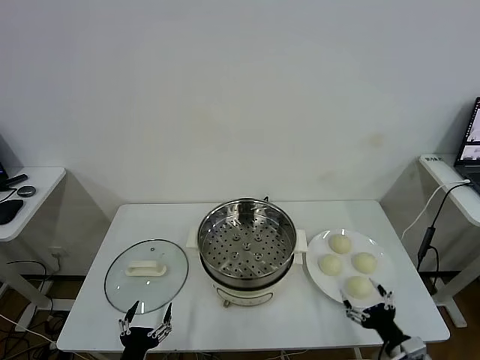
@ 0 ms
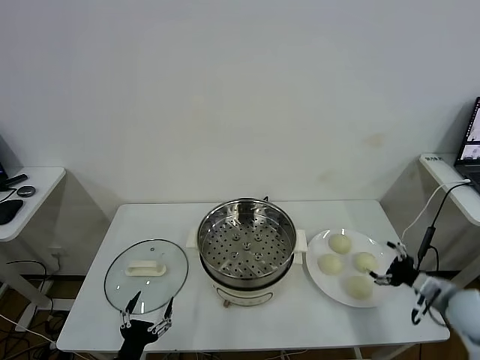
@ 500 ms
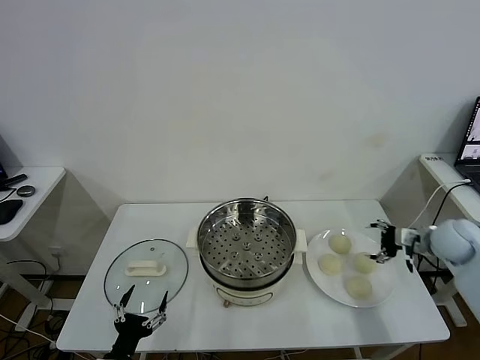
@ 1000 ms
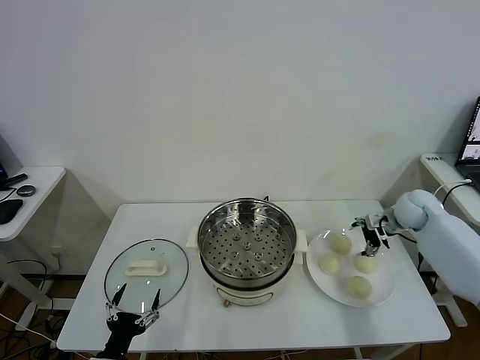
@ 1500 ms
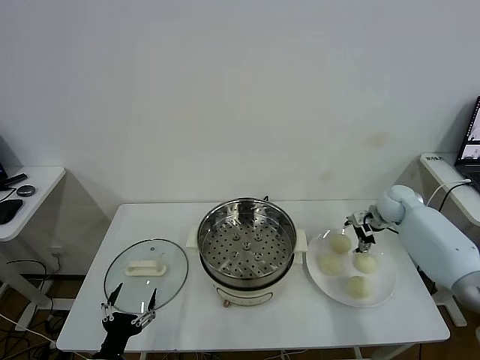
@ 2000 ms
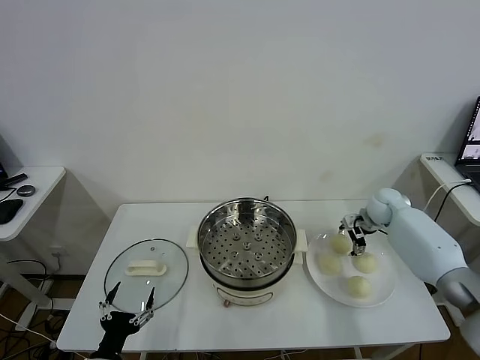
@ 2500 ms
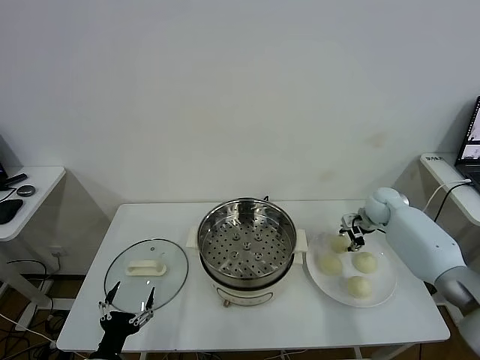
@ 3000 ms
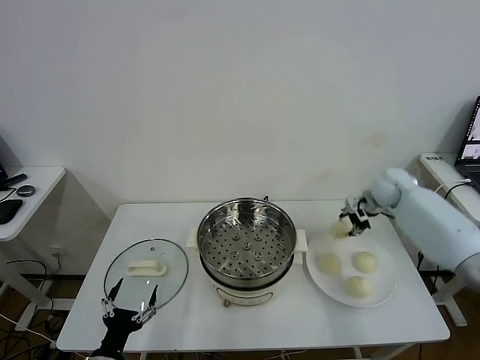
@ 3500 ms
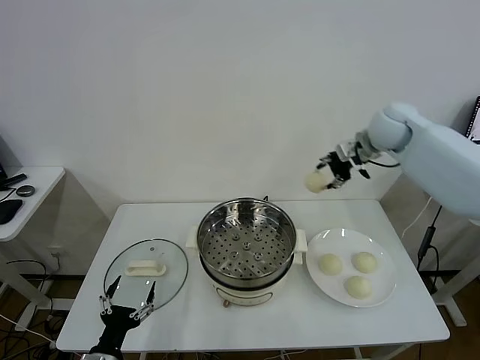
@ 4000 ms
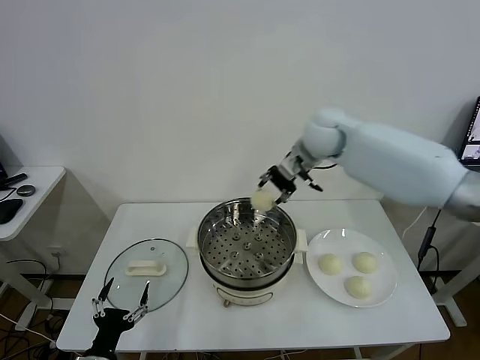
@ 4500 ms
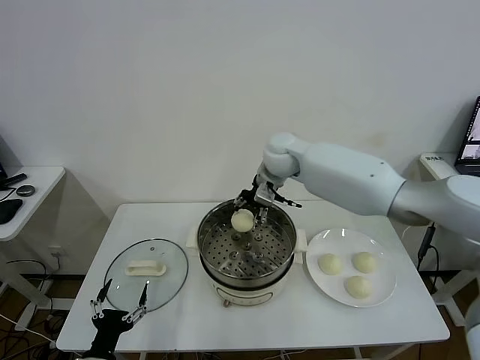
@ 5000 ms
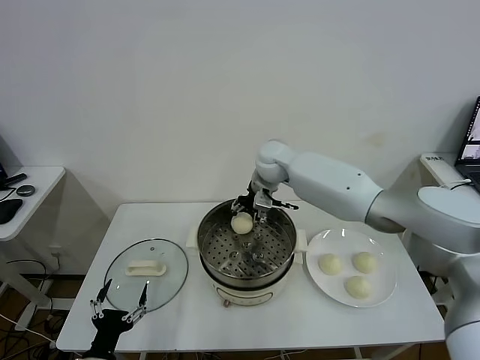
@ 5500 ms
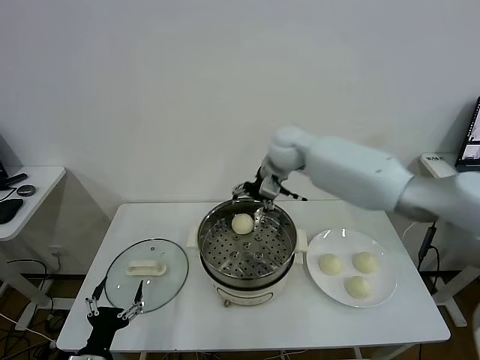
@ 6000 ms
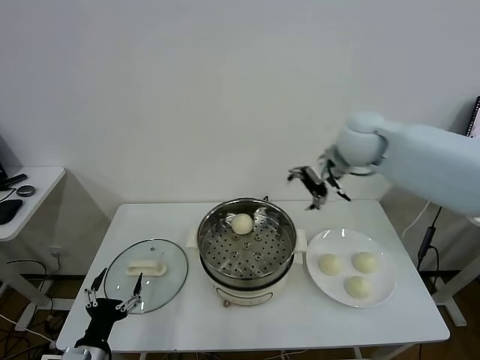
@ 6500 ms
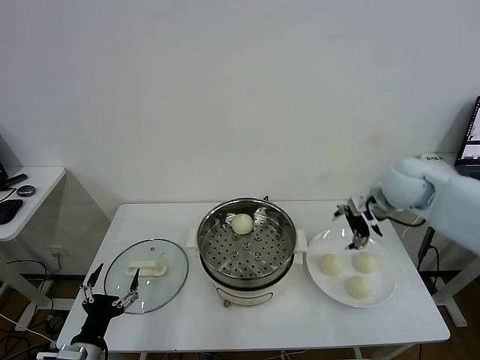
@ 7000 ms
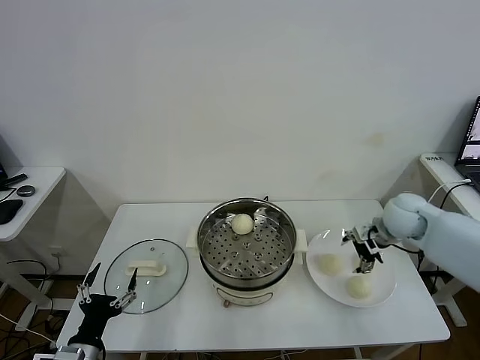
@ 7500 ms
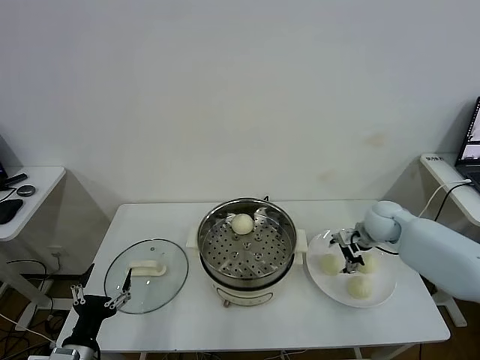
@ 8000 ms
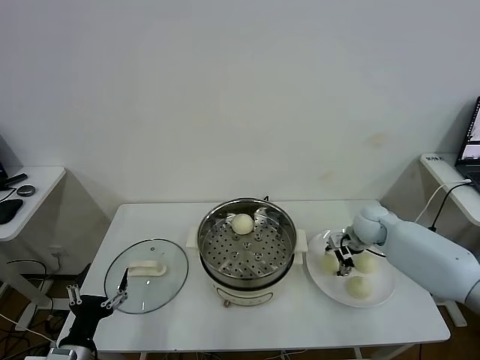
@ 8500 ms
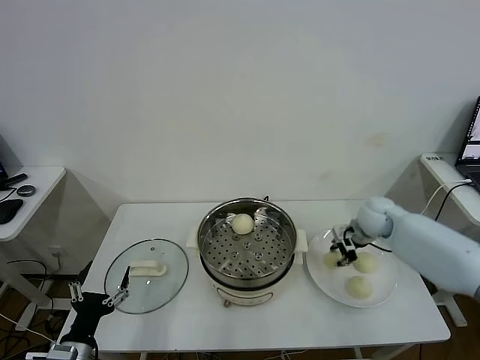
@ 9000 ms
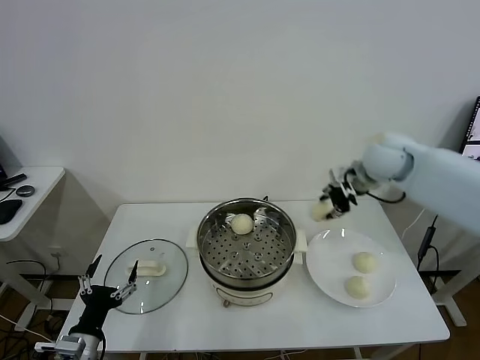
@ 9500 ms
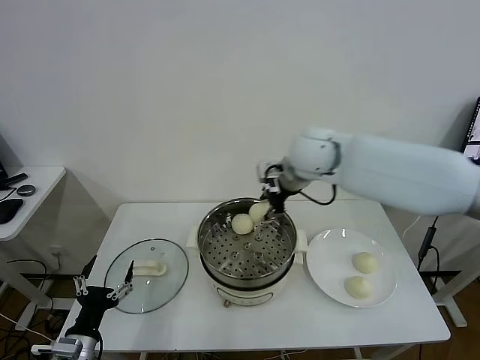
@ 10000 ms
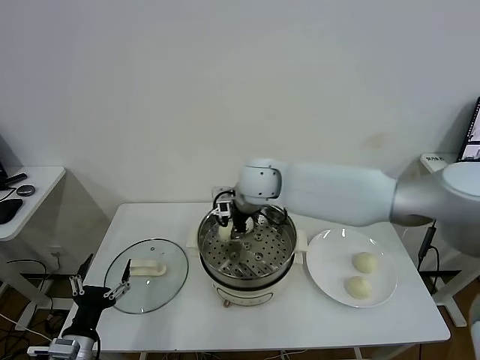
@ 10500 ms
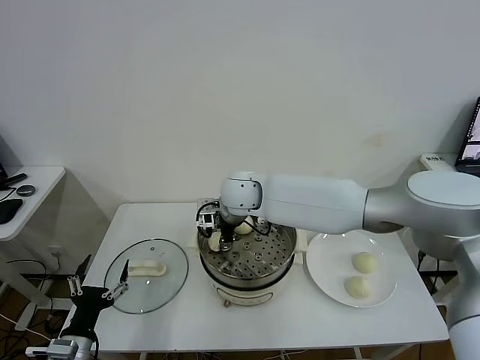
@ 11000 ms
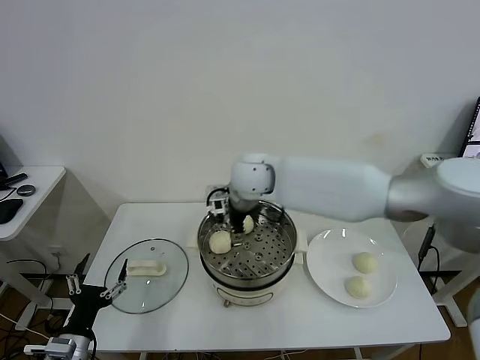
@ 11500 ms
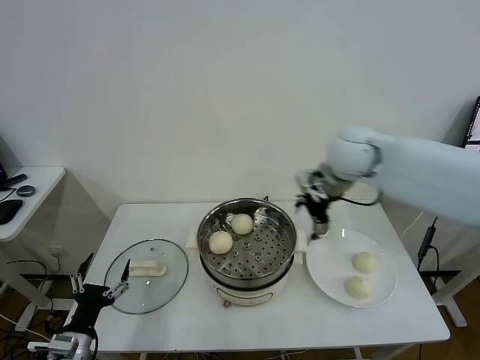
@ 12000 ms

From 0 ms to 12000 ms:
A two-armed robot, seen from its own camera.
Task of the whole recording: take steamed baozi put them in steamer.
Step, from 0 ms to 3000 ms: Grasp the baozi in the plate with right gripper.
Step, from 3500 ms to 5500 ms: Place the baozi on the steamer with right gripper.
Step, from 6000 ms to 8500 ms: Grasp the baozi in the plate with right gripper.
Step, from 9000 ms to 11000 ms: Place the baozi on the steamer with right gripper.
From 2000 ms to 4000 ms: The right gripper heads upward and to the left, covering approximately 25 cm, and closes.
From 4000 ms to 6000 ms: The right gripper moves to the left, roughly 15 cm, and opens its fingers.
From 6000 ms to 8000 ms: The right gripper shifts roughly 30 cm to the right and downward.
From 8000 ms to 10000 ms: The right gripper goes approximately 30 cm to the left and upward, and closes.
From 10000 ms to 12000 ms: The right gripper moves to the right, some 15 cm, and opens up.

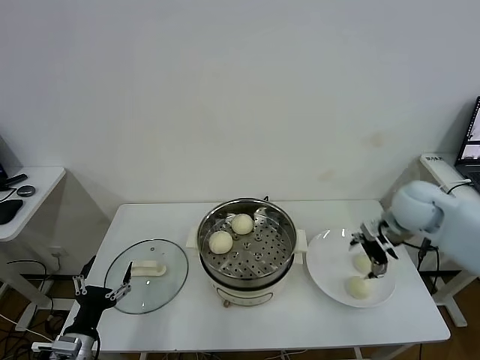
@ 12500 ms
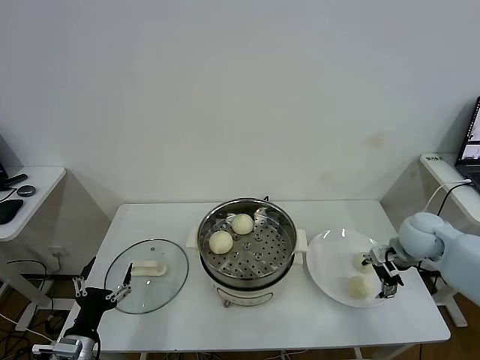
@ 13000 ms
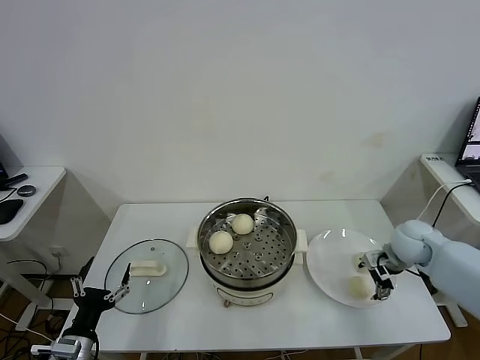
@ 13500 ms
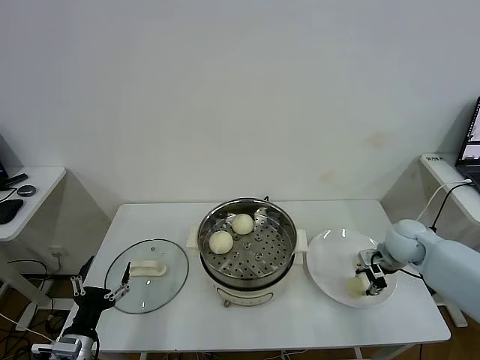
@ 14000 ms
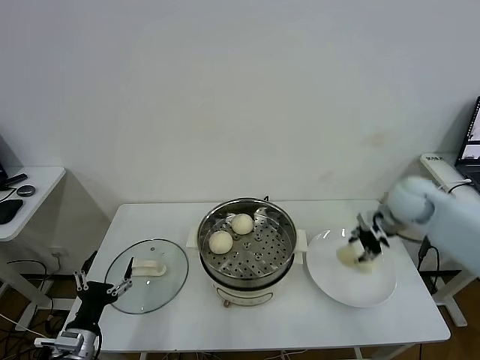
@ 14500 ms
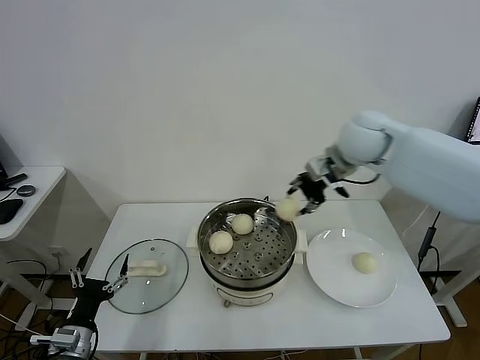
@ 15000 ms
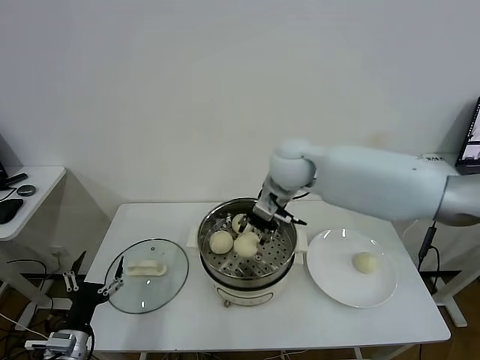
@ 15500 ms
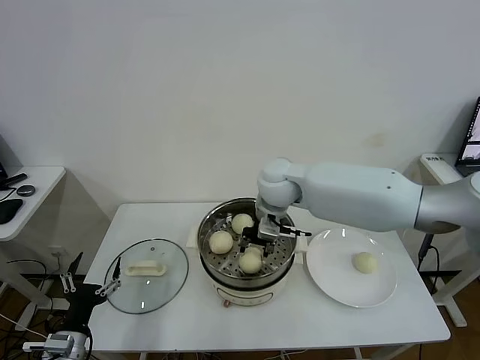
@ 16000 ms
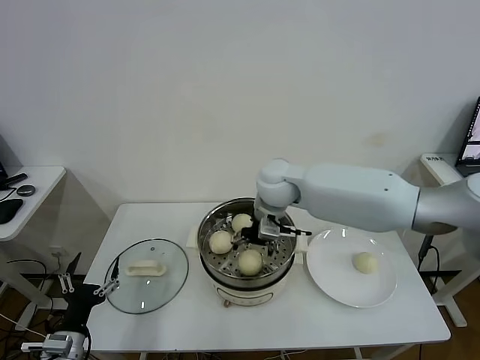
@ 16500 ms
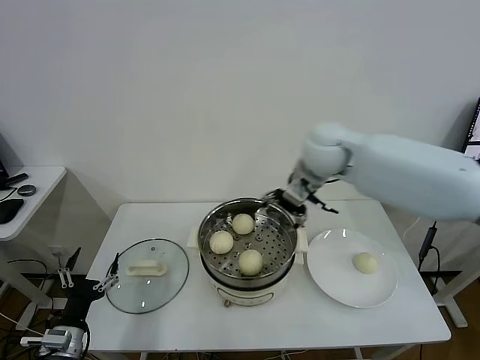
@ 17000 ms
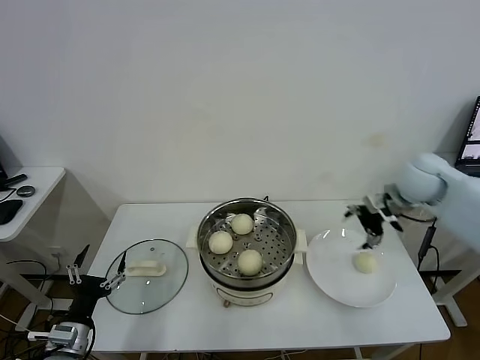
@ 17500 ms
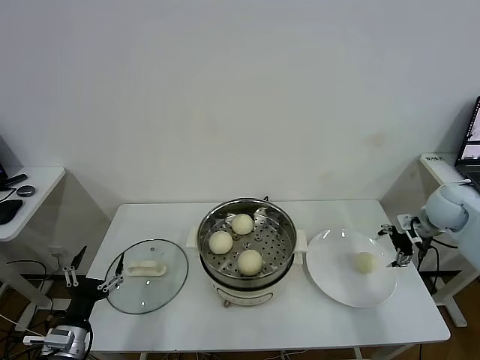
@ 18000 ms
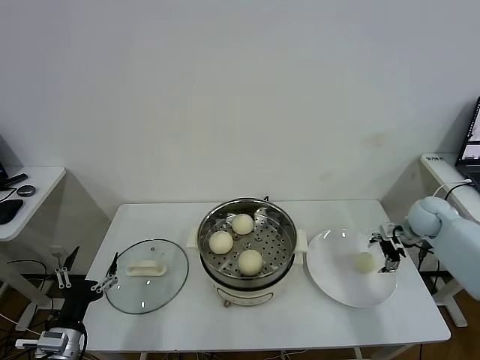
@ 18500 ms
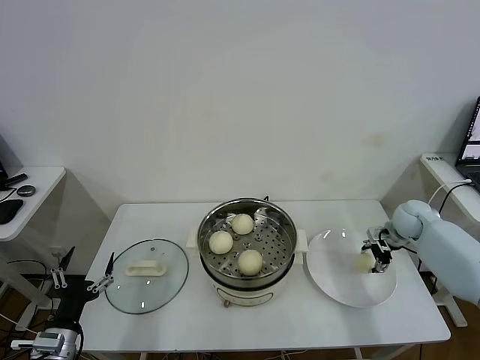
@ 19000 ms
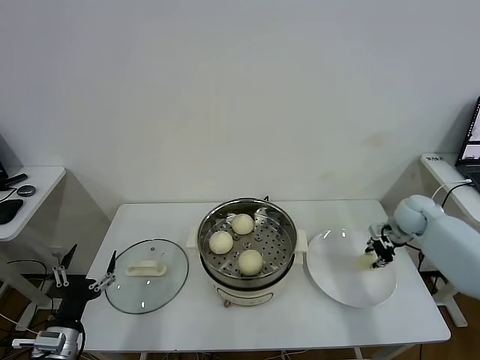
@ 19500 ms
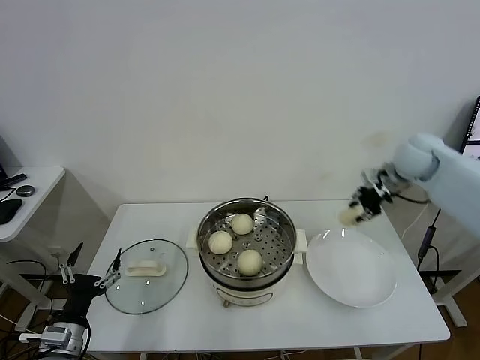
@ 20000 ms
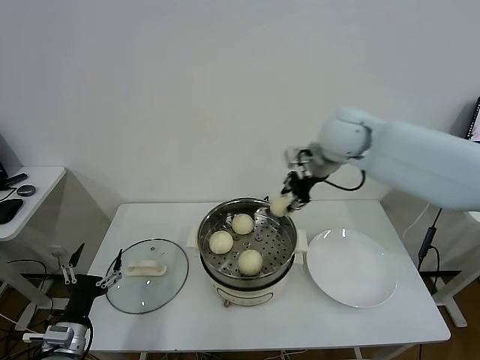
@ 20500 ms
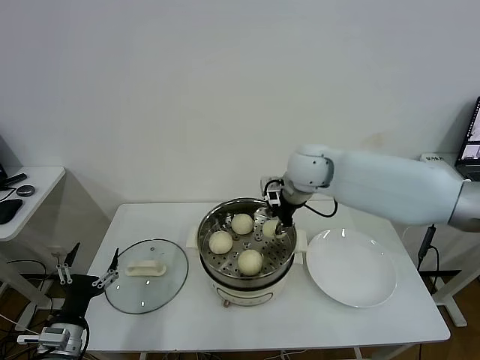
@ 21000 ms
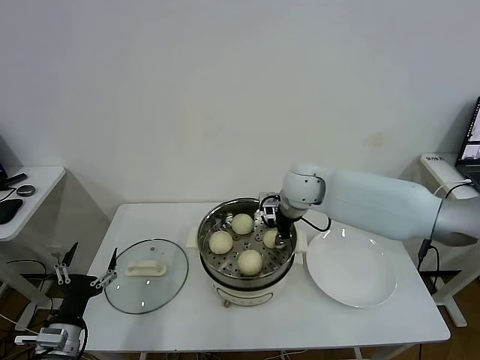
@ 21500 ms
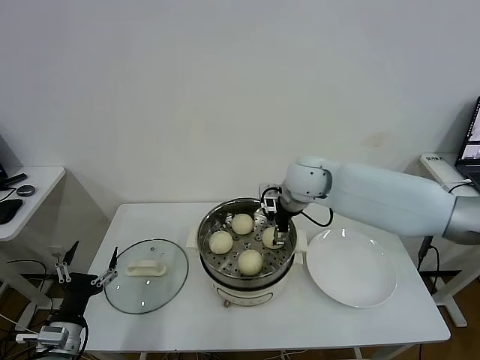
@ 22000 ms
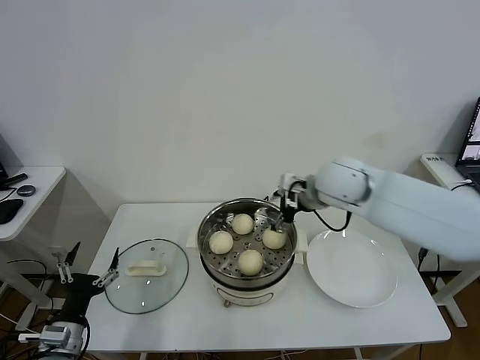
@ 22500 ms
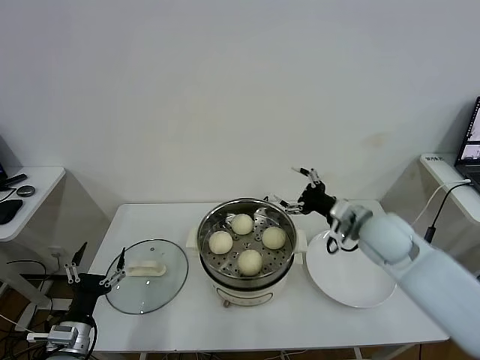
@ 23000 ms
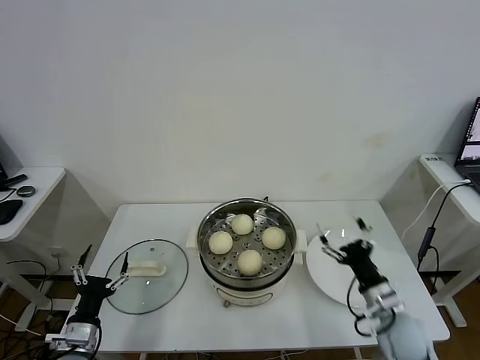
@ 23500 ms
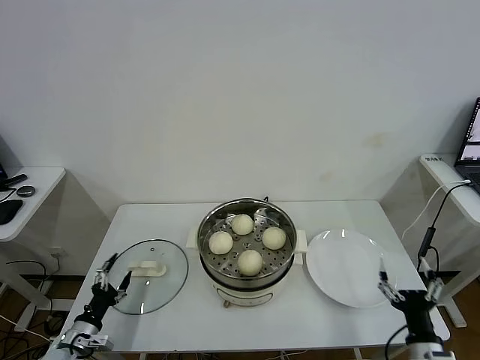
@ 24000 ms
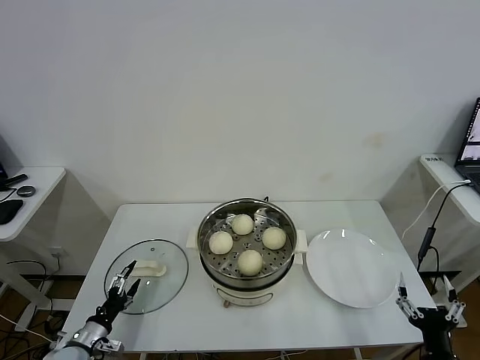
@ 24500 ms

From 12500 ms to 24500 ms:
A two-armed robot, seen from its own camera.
Task of the whole recording: take steamed baozi put them in steamer.
Step, from 12500 ms to 14000 ms: Grasp the baozi in the plate with right gripper.
Step, from 14500 ms to 16500 ms: Place the baozi on the steamer with right gripper.
Step, from 17000 ms to 19000 ms: Grasp the baozi in the plate with right gripper.
Step, from 19500 ms to 22000 ms: Place the baozi on the steamer with right gripper.
From 12500 ms to 14500 ms: The right gripper travels downward and back again, some 10 cm each way, and closes its fingers.
From 14500 ms to 16500 ms: The right gripper heads to the left, covering about 30 cm, and opens.
From 16500 ms to 18500 ms: The right gripper travels to the right by approximately 40 cm.
From 18500 ms to 20500 ms: The right gripper heads to the left and upward, covering some 35 cm, and closes.
From 20500 ms to 22500 ms: The right gripper shifts approximately 10 cm downward and backward, and opens up.
From 22500 ms to 24500 ms: The left gripper heads downward, covering some 10 cm. Meanwhile the right gripper heads backward, downward and to the right, covering roughly 50 cm.

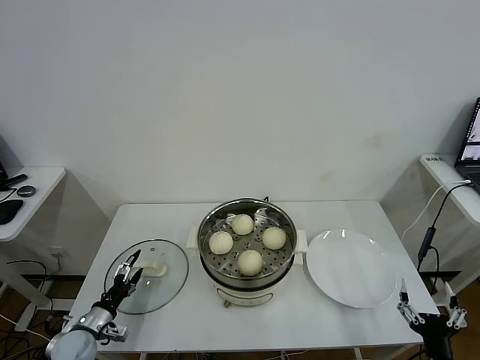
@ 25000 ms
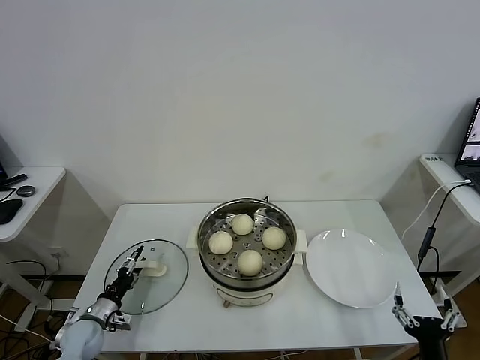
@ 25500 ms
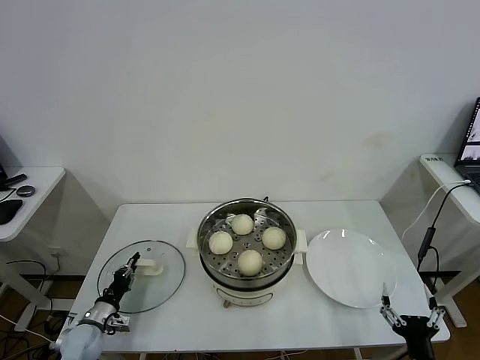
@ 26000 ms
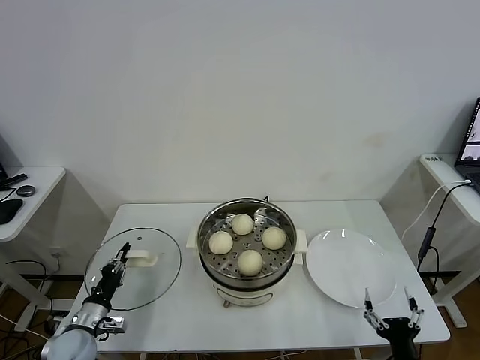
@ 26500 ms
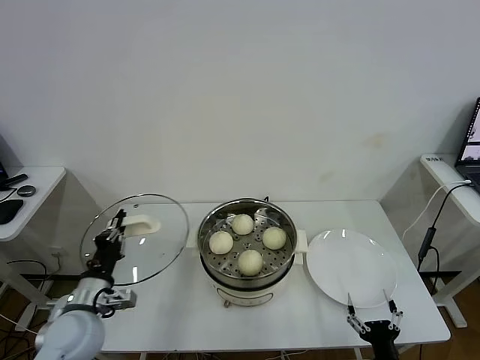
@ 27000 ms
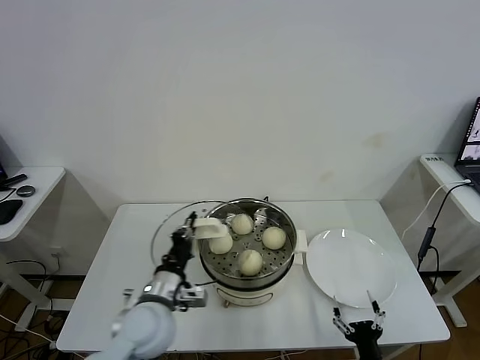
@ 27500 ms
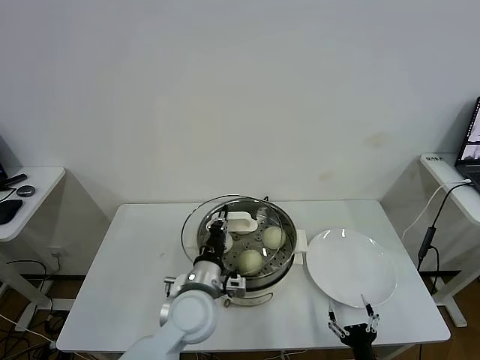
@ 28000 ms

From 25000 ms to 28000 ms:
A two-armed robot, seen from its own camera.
Task of the whole recording: take steamed baozi put them in steamer.
From 25000 ms to 26500 ms: The left gripper closes its fingers.
From 26500 ms to 28000 ms: The right gripper goes approximately 5 cm downward; the left gripper is displaced to the right and upward by roughly 35 cm.
